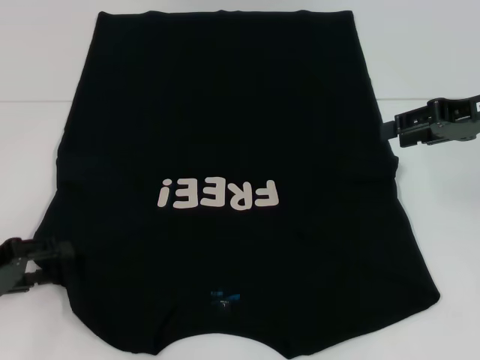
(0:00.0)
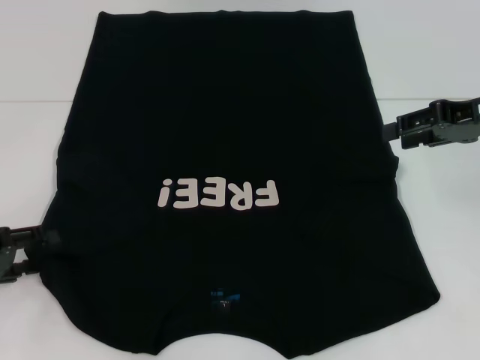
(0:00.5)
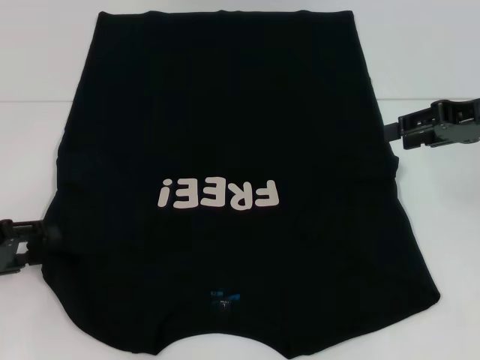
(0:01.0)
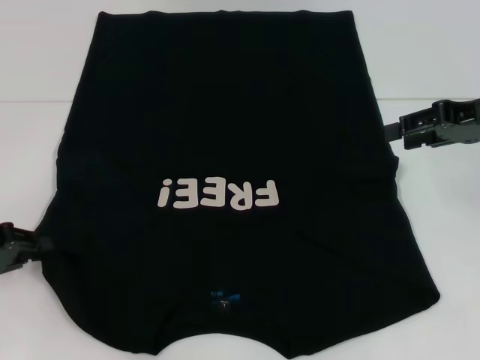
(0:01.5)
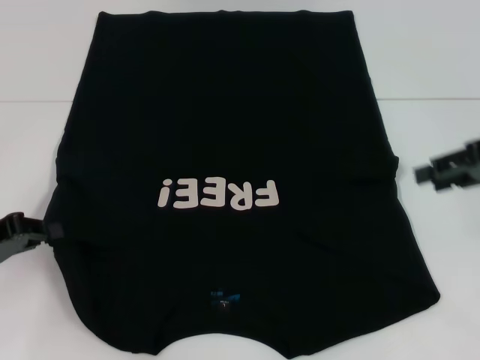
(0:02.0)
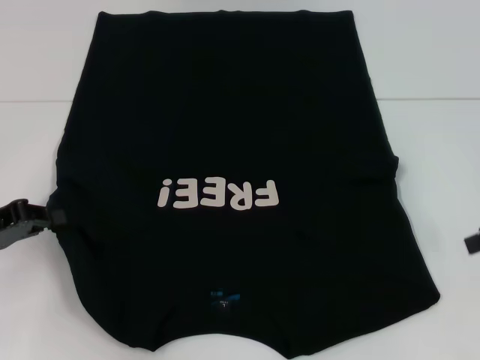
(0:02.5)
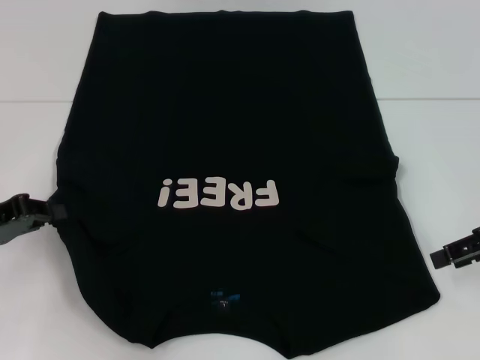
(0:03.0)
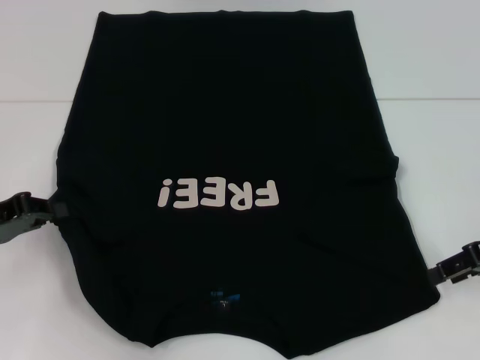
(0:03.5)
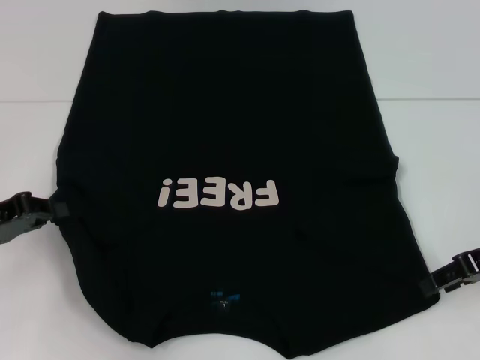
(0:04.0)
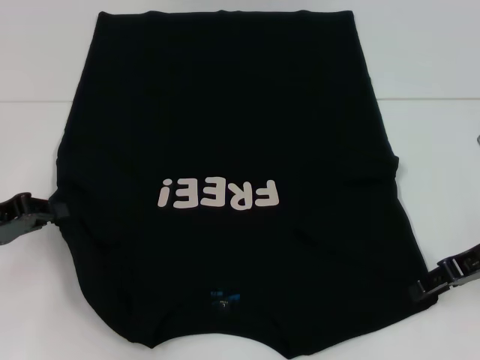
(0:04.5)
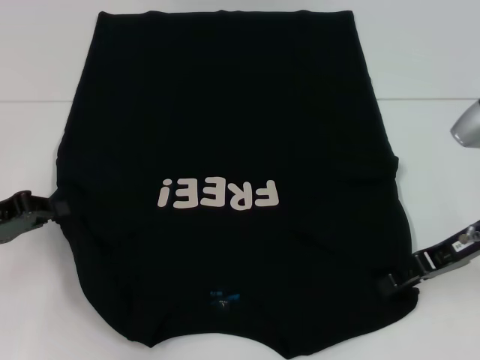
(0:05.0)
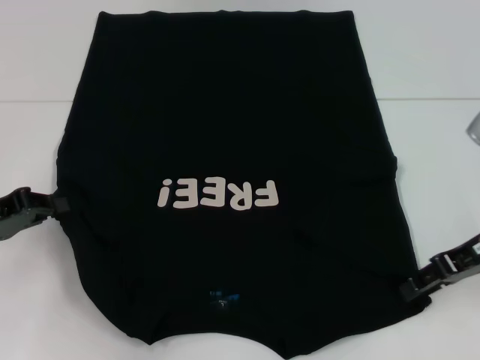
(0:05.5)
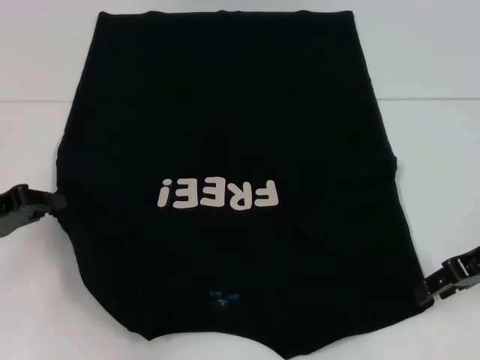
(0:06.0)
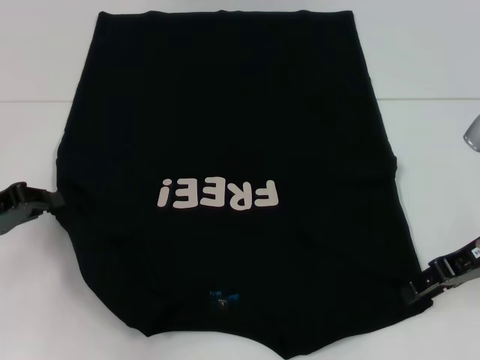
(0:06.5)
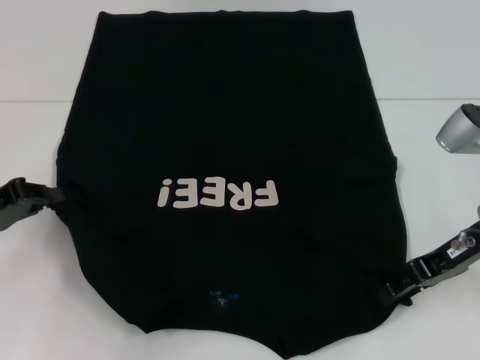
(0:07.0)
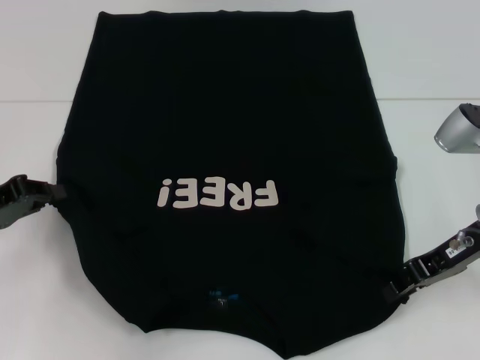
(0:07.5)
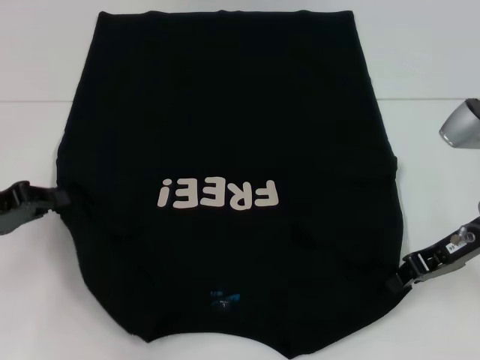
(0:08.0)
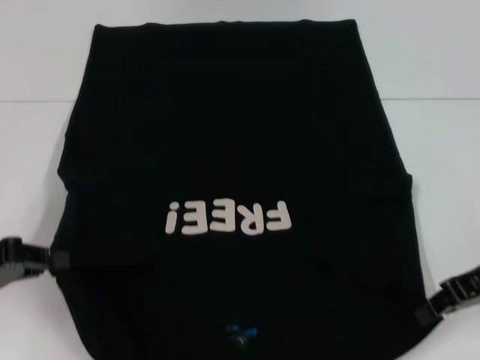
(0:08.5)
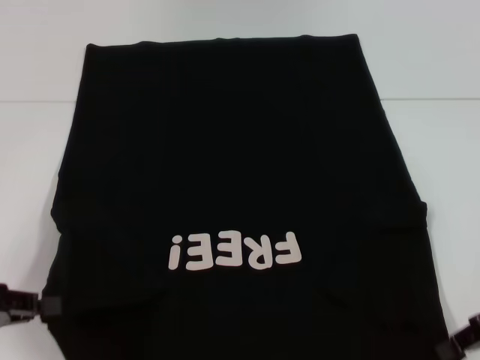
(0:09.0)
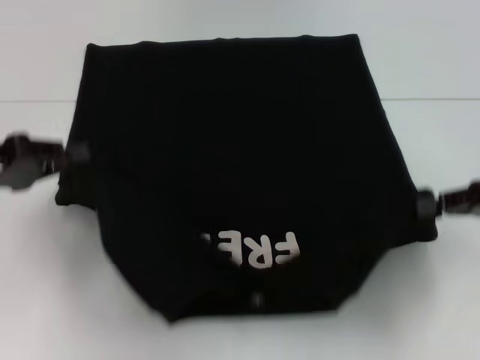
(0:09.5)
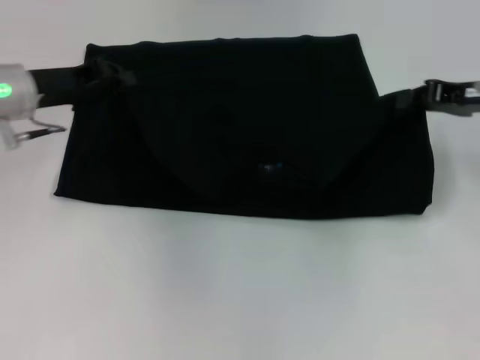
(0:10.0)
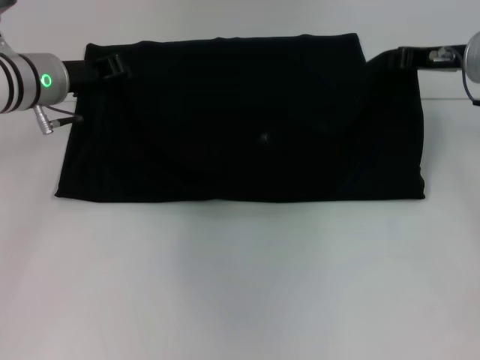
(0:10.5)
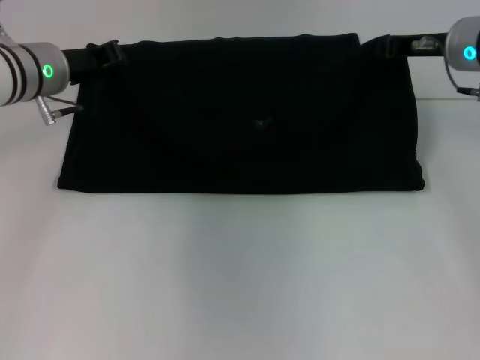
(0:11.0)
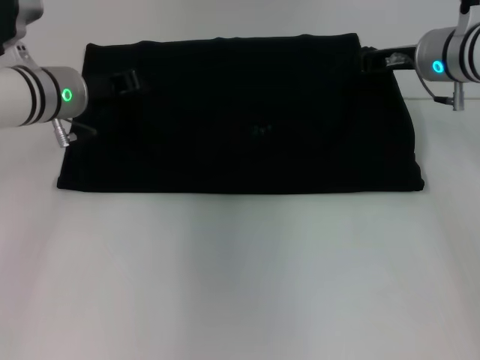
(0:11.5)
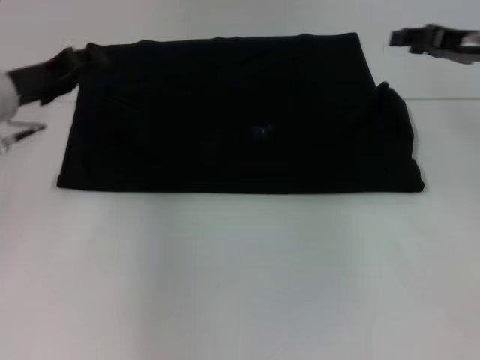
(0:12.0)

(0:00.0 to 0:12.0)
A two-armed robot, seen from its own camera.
Step, 0:02.0 - 0:08.0: Grab the bottom right corner with your right hand.
Step, 0:08.5 - 0:11.5: Fold the clothes with your left hand.
Step, 0:08.5 - 0:11.5: Fold the clothes with your right hand.
0:00.0 - 0:02.0: The left gripper closes its fingers.
0:02.0 - 0:04.0: The right gripper is displaced downward by approximately 5 cm.
0:04.0 - 0:06.0: There are only small adjustments of the grippers.
0:06.0 - 0:08.0: The right gripper closes up.
0:08.0 - 0:10.0: The right gripper heads forward, covering some 5 cm. Meanwhile the left gripper travels forward, to the right and upward by roughly 15 cm.
0:10.0 - 0:12.0: The right gripper moves approximately 10 cm to the left and comes back, and opens up.

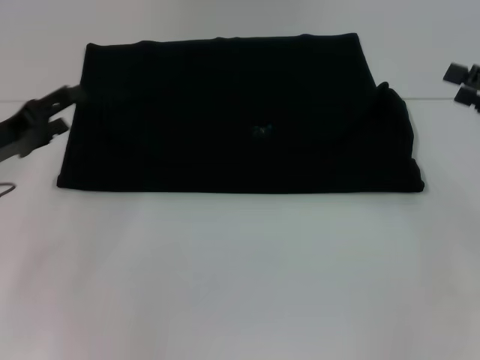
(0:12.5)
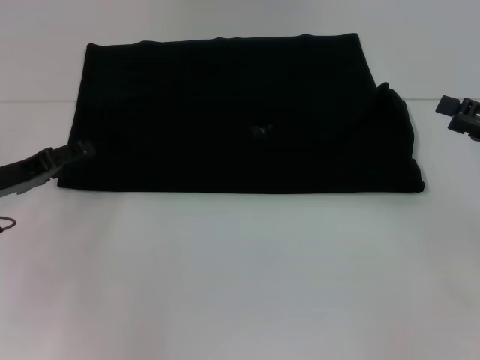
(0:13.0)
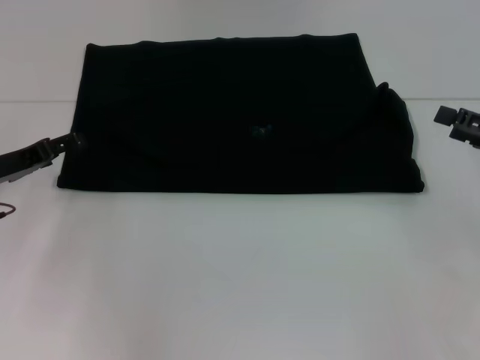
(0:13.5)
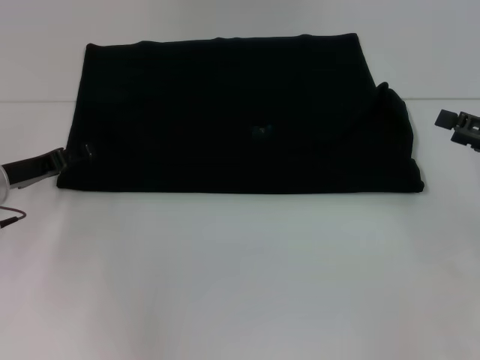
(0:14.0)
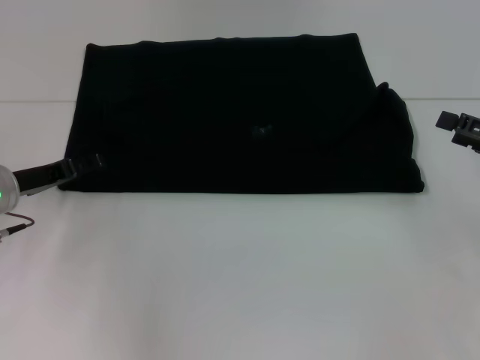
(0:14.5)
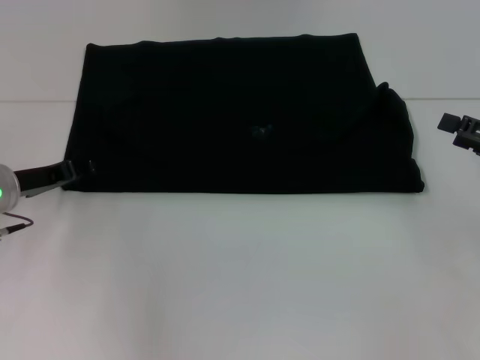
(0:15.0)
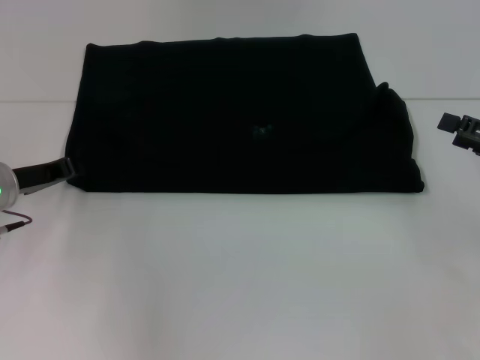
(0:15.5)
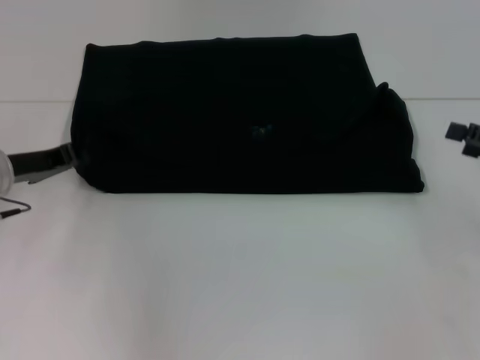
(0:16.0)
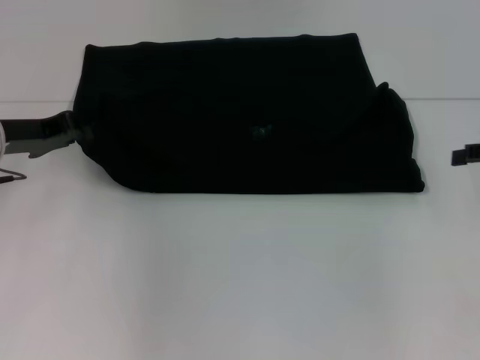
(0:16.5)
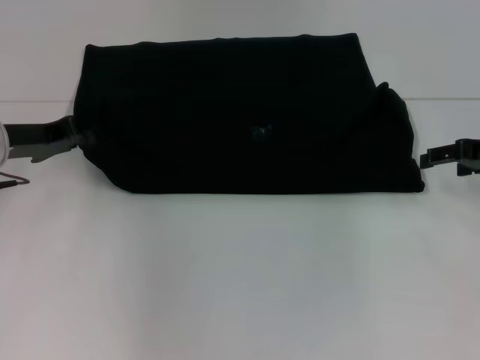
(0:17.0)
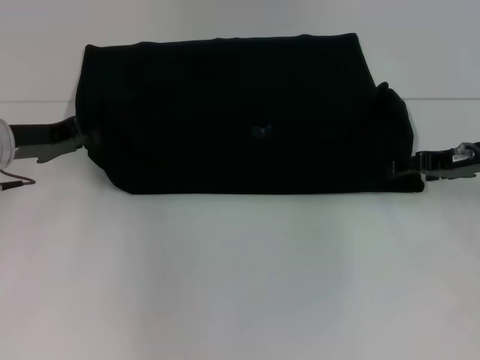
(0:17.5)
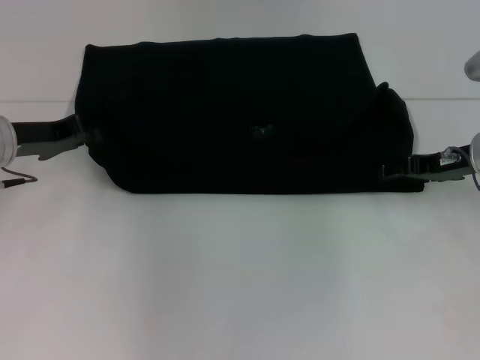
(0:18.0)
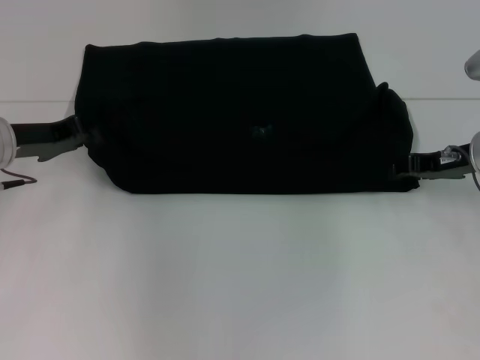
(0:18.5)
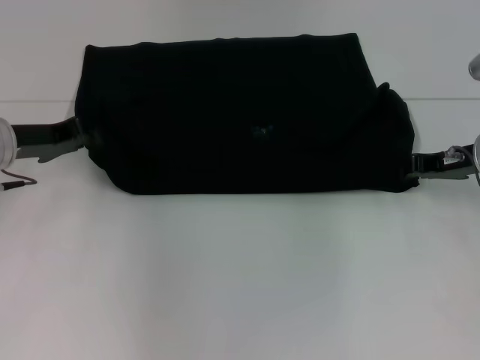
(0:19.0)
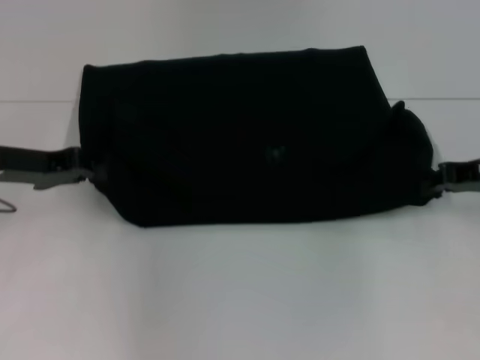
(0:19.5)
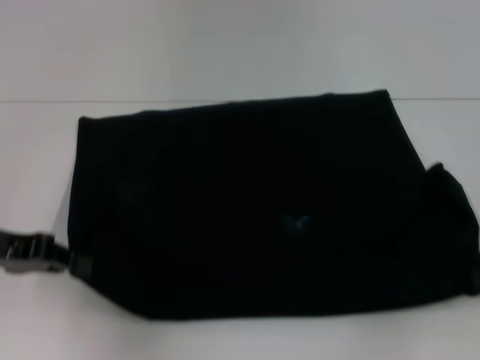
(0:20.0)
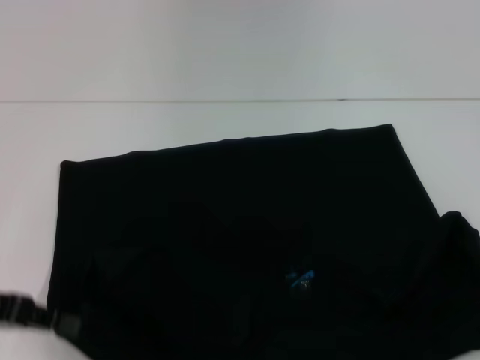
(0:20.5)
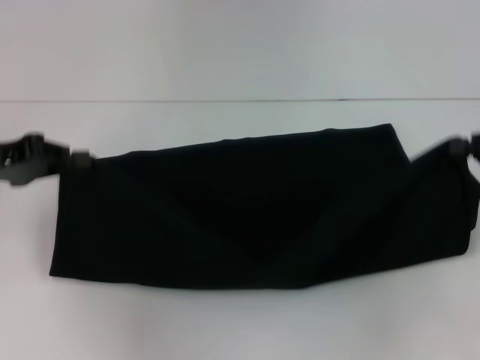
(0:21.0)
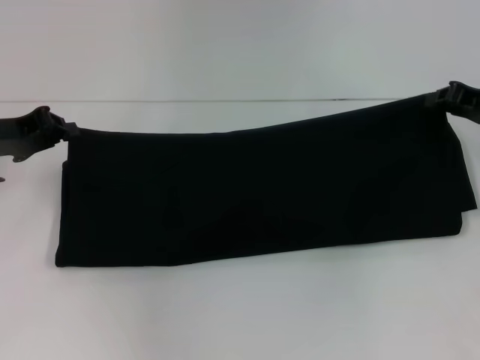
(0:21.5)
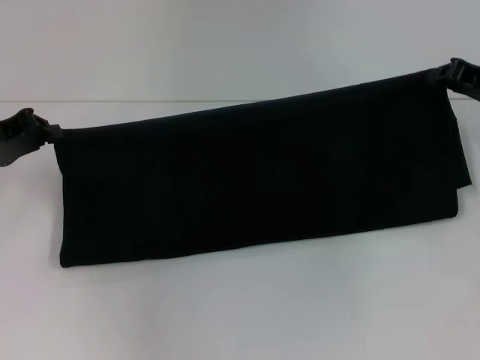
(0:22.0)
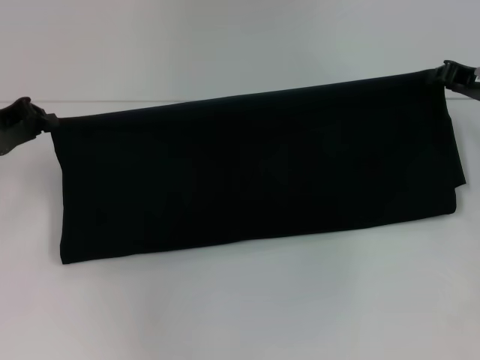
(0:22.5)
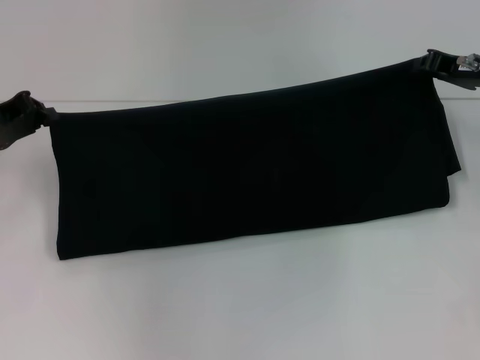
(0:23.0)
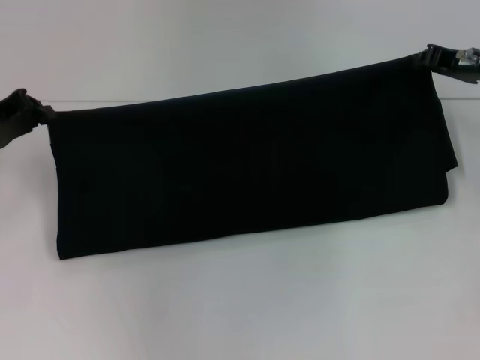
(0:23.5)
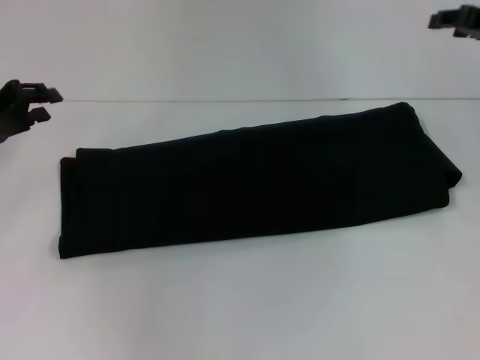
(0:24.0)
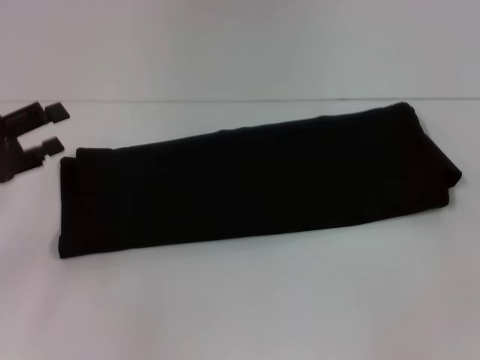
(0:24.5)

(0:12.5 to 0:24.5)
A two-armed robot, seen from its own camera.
Step, 0:12.5 - 0:20.0: Pull the clothes with your left hand.
Step, 0:12.5 - 0:20.0: Pull the clothes with your right hand.
Step, 0:20.5 - 0:23.5: Fold the clothes with your left hand.
Step, 0:20.5 - 0:23.5: Fold the clothes with your right hand.
0:12.5 - 0:14.5: The left gripper changes place by approximately 5 cm.
0:14.5 - 0:16.5: The right gripper changes place by roughly 5 cm, while the left gripper shifts roughly 5 cm upward, and closes.
0:16.5 - 0:18.5: The right gripper moves to the left, approximately 10 cm.
0:18.5 - 0:20.5: The right gripper goes approximately 20 cm backward and to the right, and closes its fingers, while the left gripper is displaced backward by about 15 cm.
0:20.5 - 0:22.5: The right gripper heads forward and to the left, covering some 20 cm. Meanwhile the left gripper is displaced forward by some 10 cm.
0:22.5 - 0:24.5: The left gripper heads backward, covering about 5 cm, and opens; the right gripper moves backward and to the right, approximately 15 cm, and opens up.

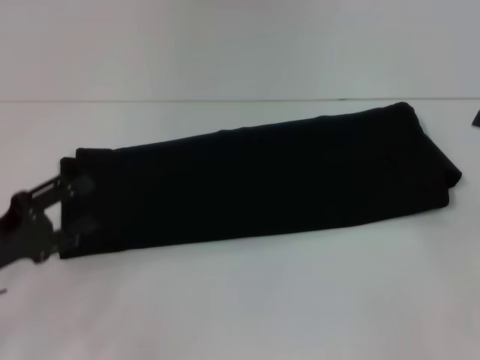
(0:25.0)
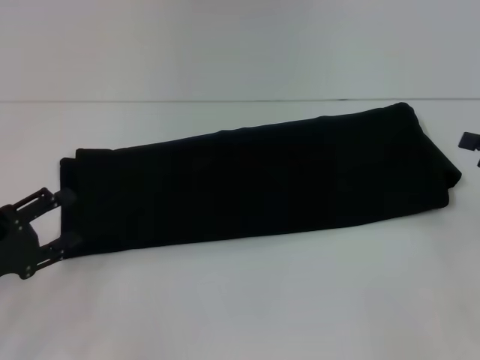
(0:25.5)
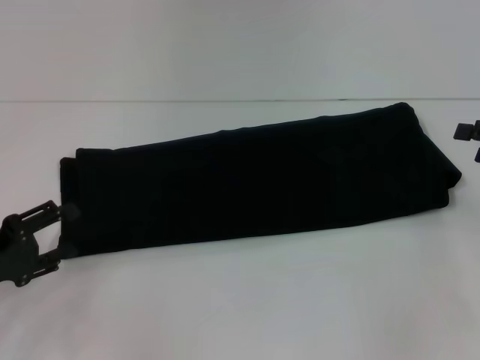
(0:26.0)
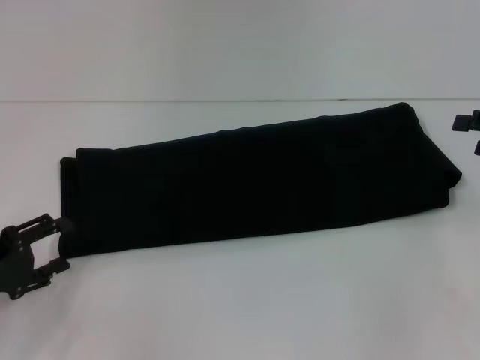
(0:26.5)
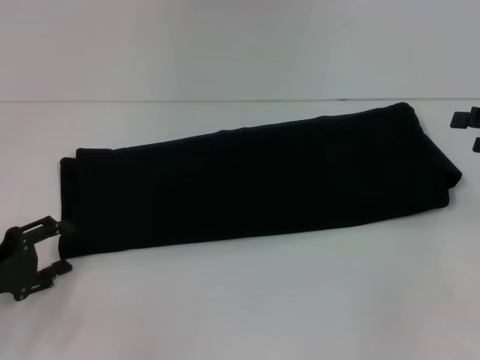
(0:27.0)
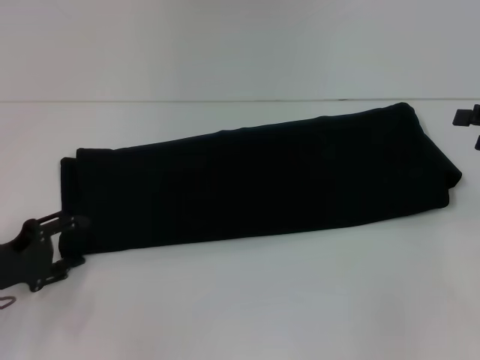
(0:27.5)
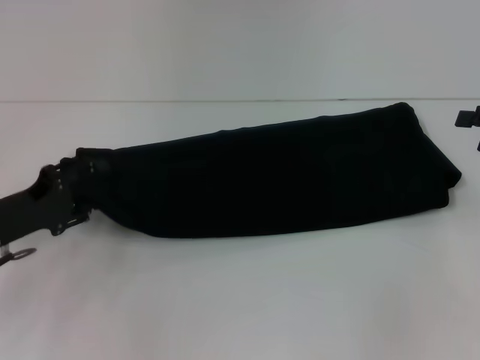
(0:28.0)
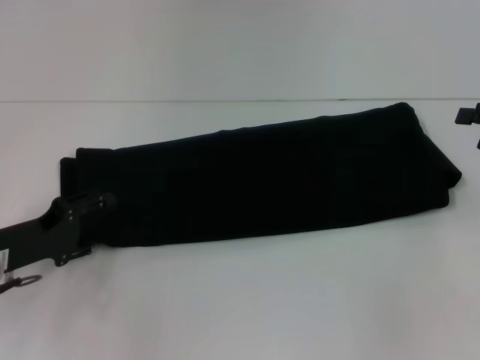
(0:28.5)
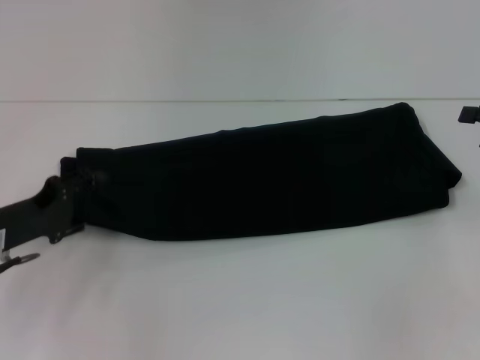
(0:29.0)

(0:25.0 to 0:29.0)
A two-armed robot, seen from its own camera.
0:27.0 - 0:29.0: The left gripper travels forward by about 5 cm.
